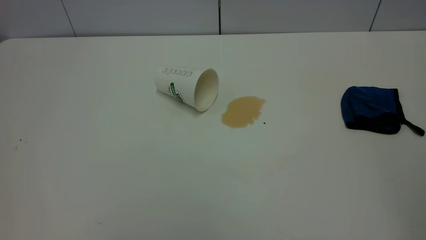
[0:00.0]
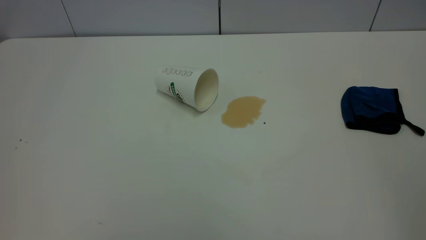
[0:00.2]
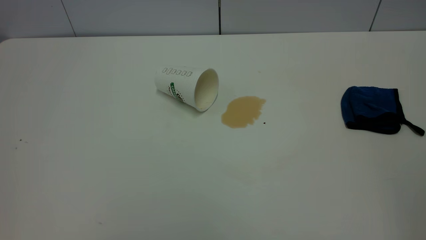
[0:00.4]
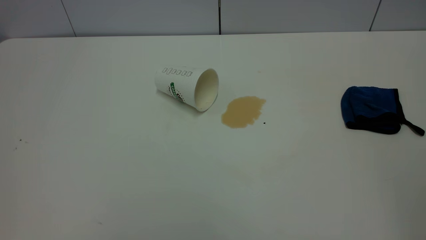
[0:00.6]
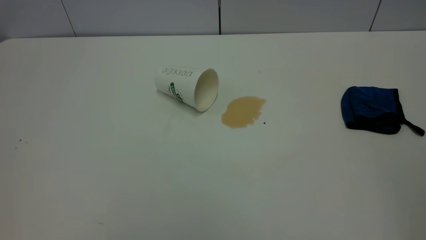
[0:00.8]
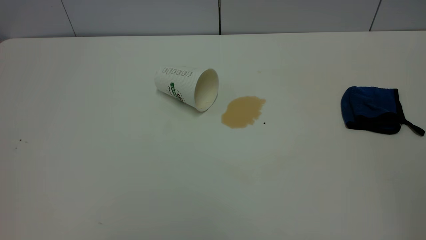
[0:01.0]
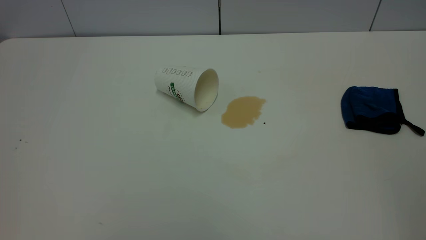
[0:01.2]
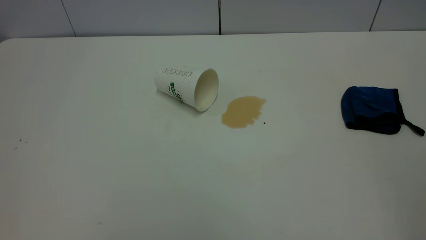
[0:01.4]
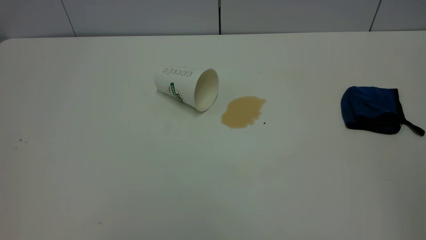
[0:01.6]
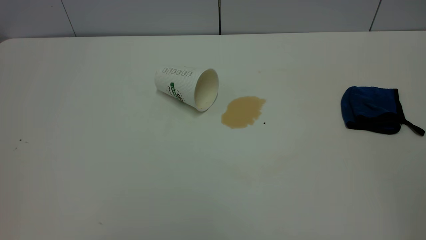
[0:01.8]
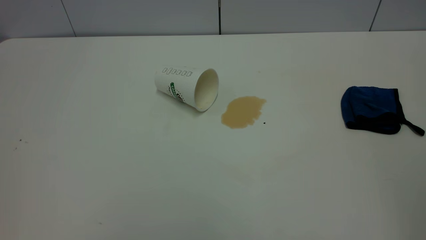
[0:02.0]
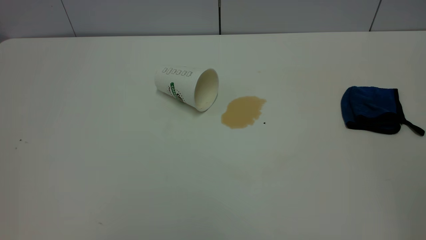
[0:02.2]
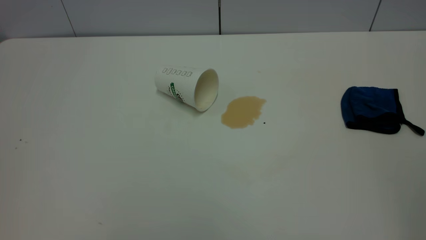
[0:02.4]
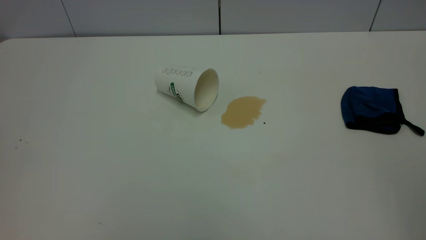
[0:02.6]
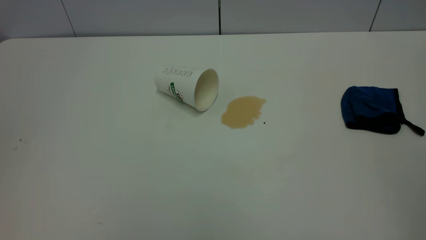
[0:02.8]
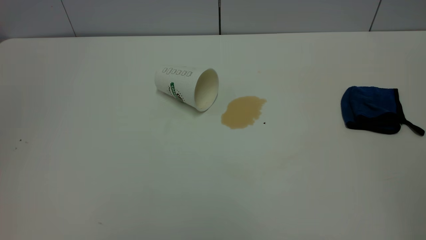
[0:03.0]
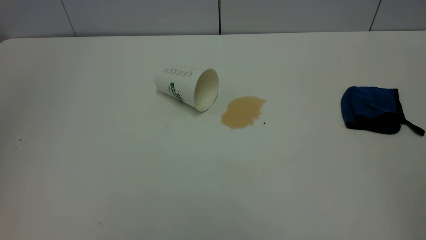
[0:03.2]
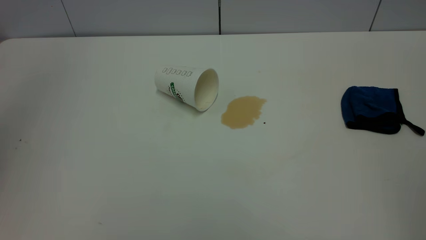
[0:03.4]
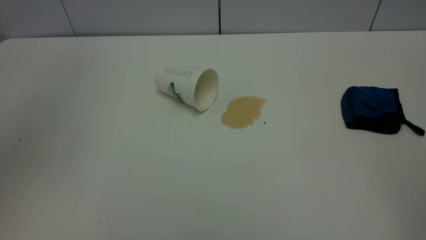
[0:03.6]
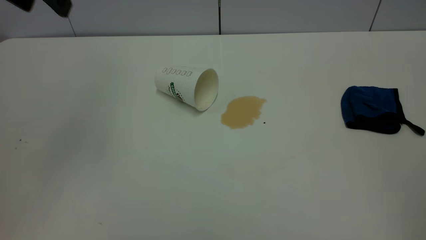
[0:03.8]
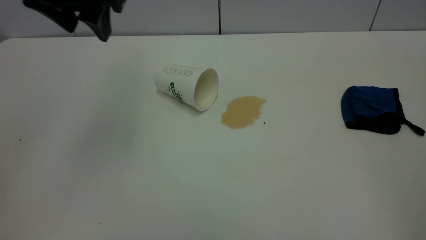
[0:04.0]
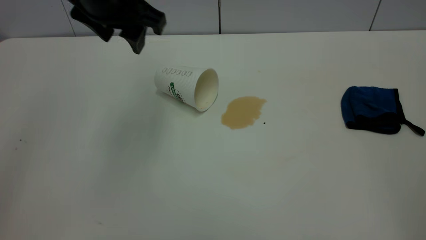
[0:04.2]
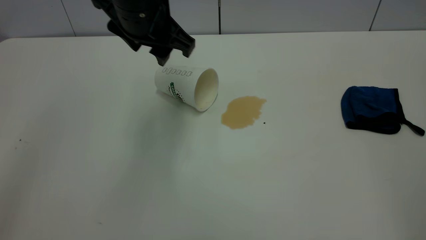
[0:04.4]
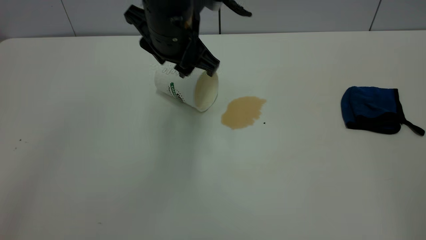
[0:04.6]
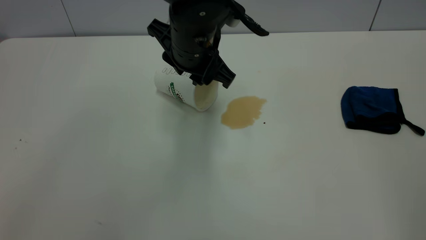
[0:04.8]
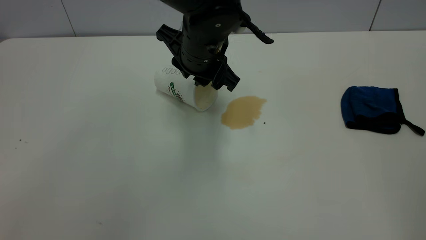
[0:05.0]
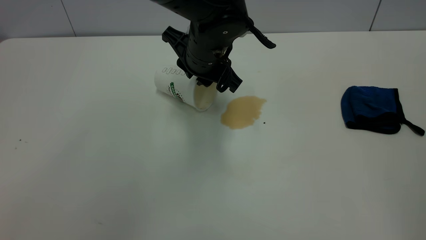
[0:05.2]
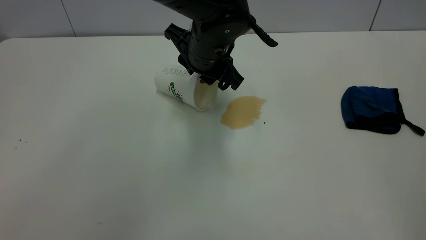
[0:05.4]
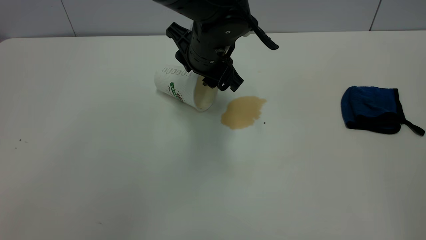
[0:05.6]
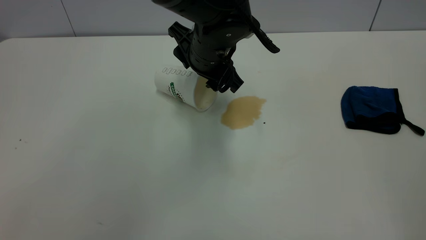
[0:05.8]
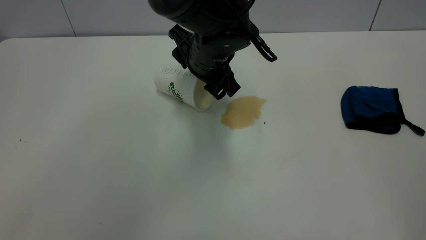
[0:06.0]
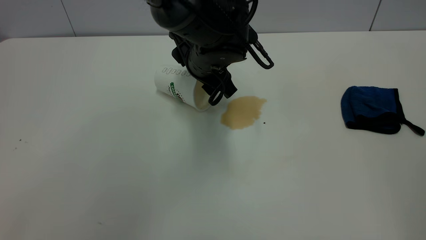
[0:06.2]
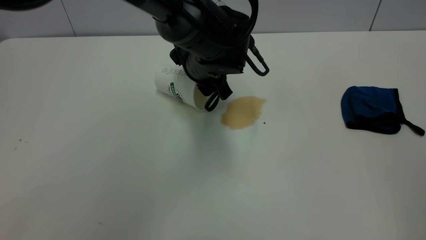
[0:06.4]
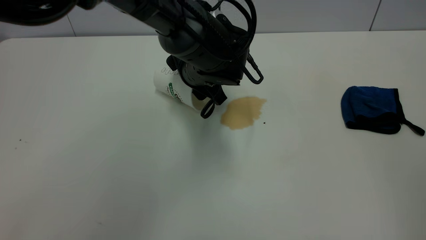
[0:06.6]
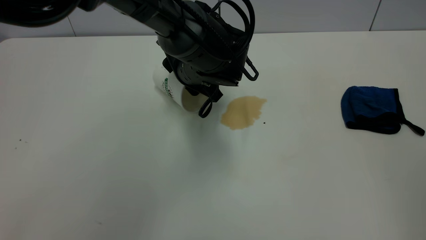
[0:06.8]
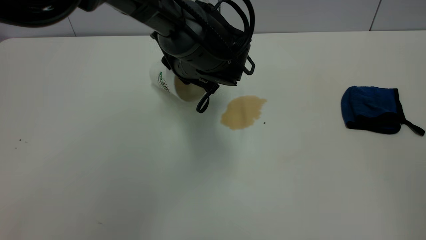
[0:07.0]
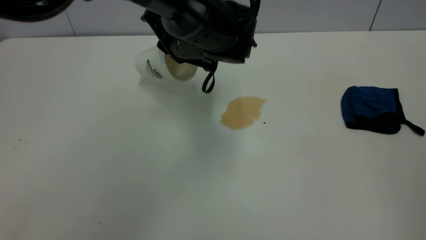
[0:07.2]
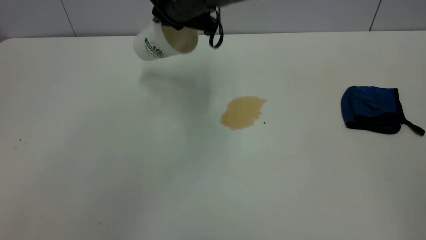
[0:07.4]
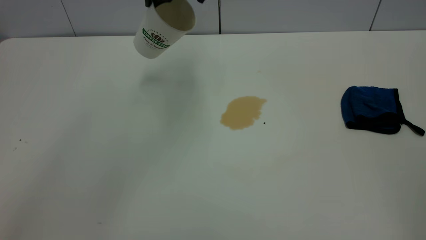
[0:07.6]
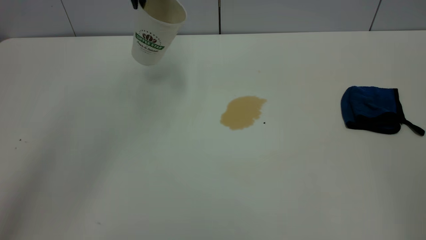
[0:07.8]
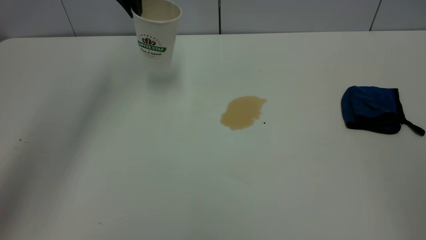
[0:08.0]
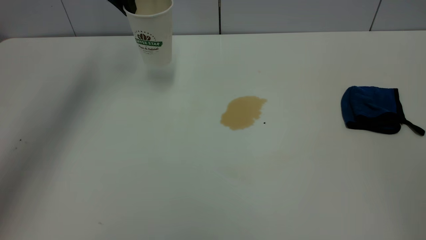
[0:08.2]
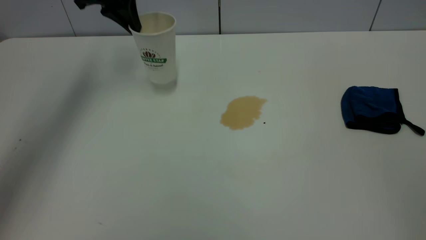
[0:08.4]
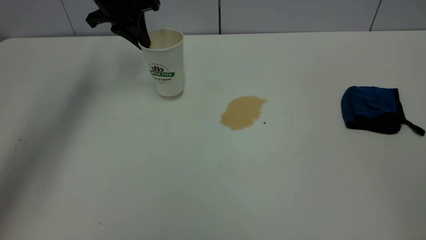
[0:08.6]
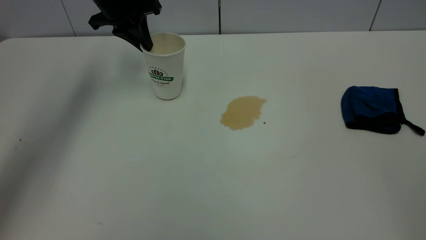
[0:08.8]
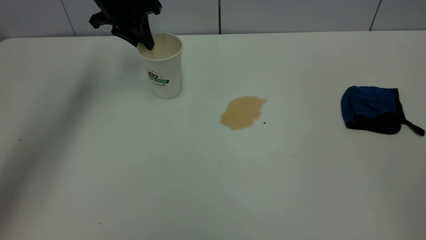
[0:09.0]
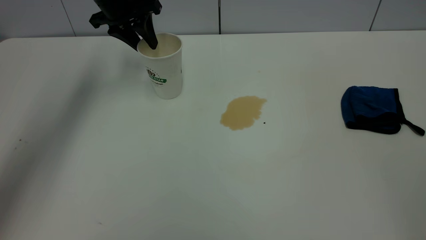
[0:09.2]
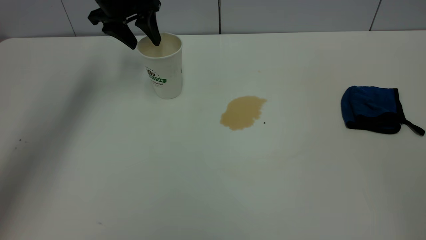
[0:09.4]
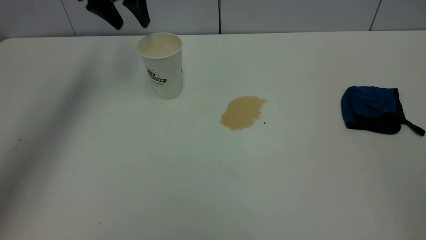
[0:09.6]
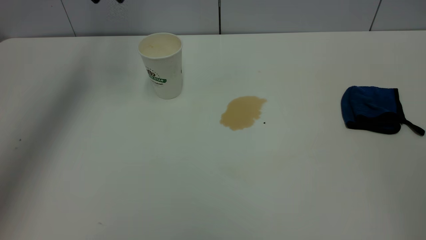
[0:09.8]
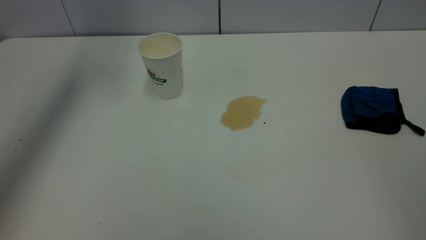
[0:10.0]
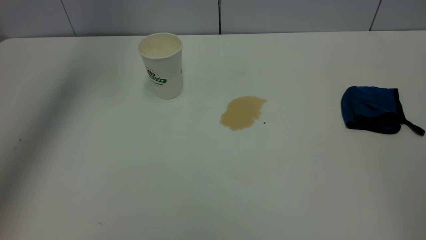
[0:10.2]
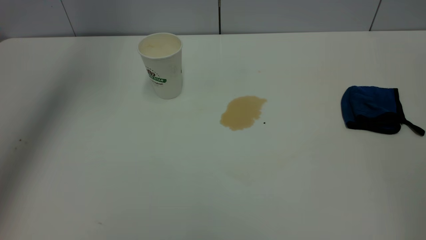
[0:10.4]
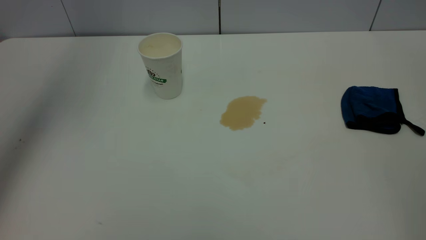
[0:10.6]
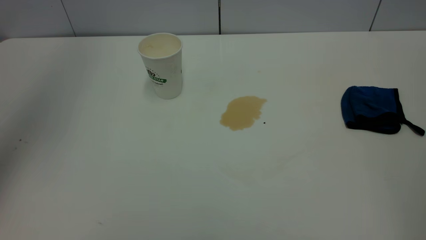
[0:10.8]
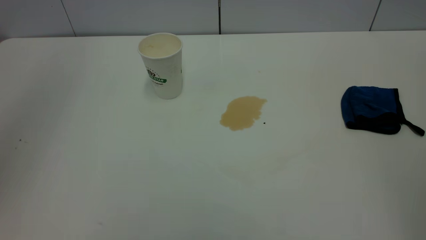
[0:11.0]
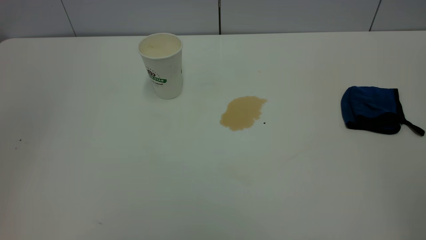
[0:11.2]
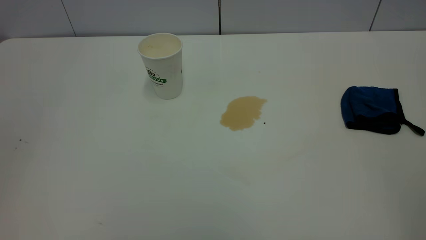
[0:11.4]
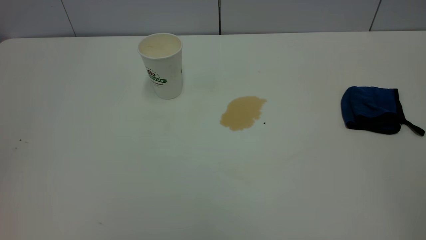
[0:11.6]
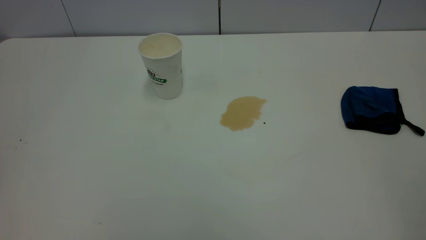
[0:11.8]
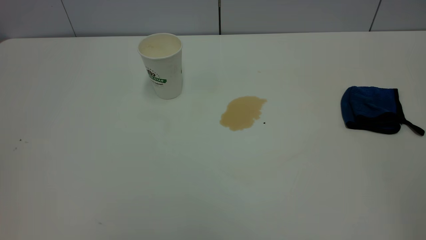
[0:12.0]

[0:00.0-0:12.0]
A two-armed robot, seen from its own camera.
Task of the whole recording: the left gripper pick up the fallen cup and place it upright, the right gripper grasp the blue rag and wipe the tea stain on the table, the right gripper put the blue rag back in its original position.
Step, 0:00.0 to 0:09.4: Stand the paper cup upright.
0:00.0 to 0:01.6: Both grippers stay about where they are.
0:03.0 to 0:04.4: The left gripper goes some 40 cm to the right, forward and downward.
0:04.4 to 0:06.0: The left gripper travels downward and to the right by about 10 cm, and closes, then opens again.
0:06.0 to 0:07.6: The left gripper is displaced upward, forward and to the left by roughly 15 cm, and closes up.
0:07.6 to 0:09.0: The left gripper shifts about 15 cm to the left, downward and forward, and opens.
0:09.0 to 0:10.4: The left gripper goes approximately 15 cm upward, and opens, then closes again.
0:10.4 to 0:12.0: The left gripper goes about 40 cm backward.

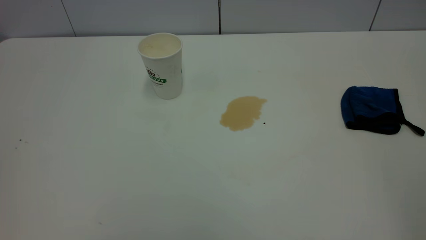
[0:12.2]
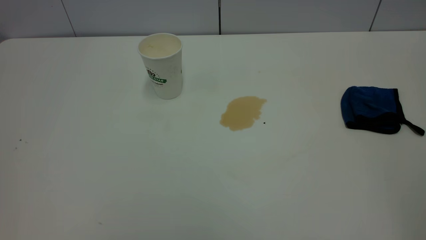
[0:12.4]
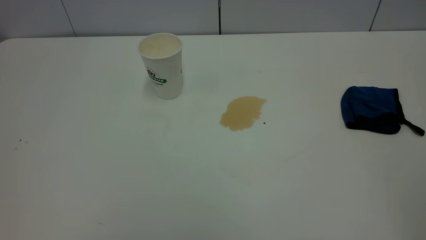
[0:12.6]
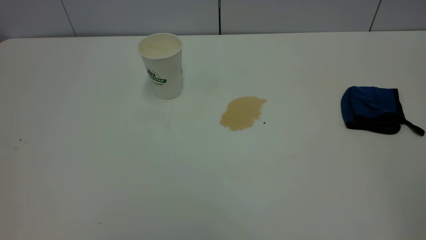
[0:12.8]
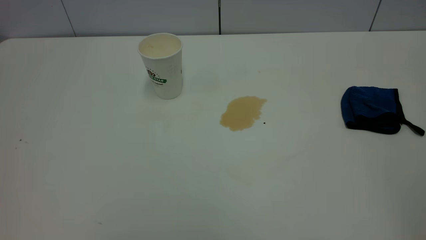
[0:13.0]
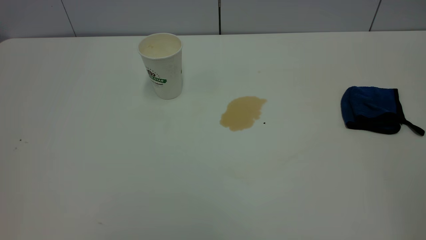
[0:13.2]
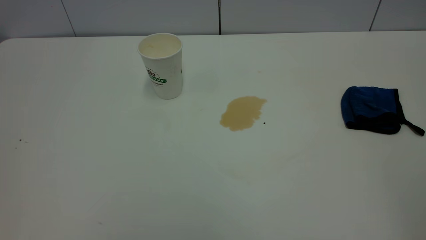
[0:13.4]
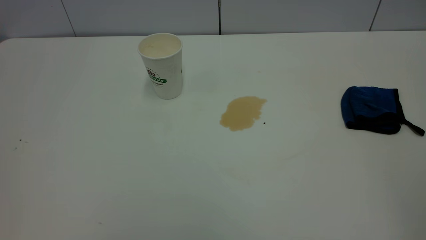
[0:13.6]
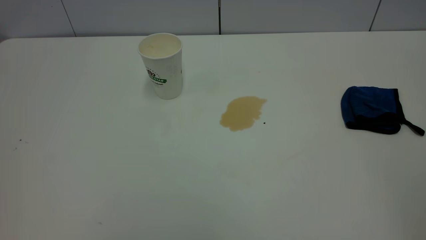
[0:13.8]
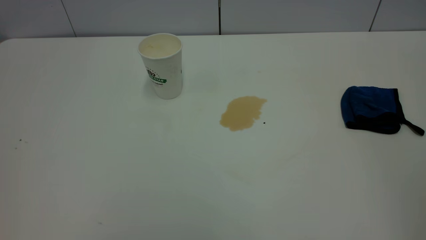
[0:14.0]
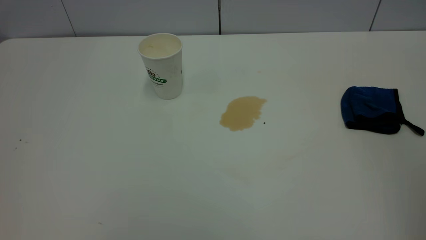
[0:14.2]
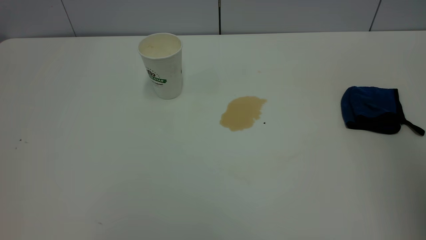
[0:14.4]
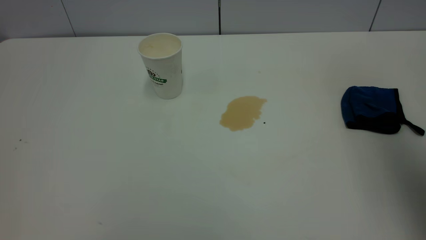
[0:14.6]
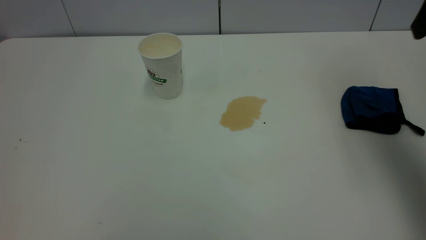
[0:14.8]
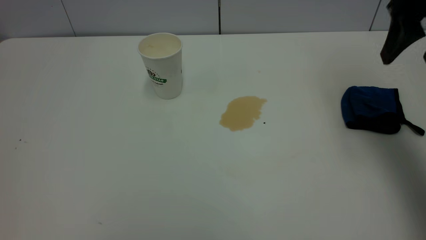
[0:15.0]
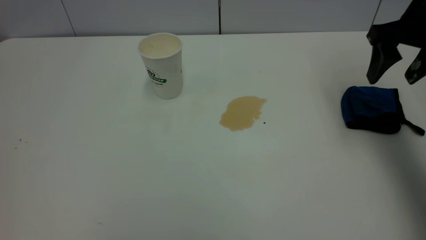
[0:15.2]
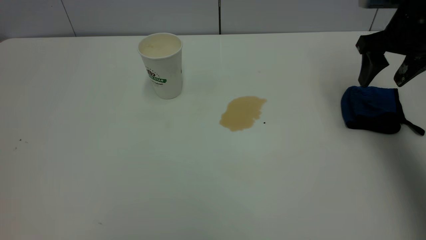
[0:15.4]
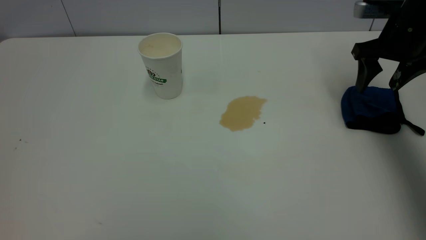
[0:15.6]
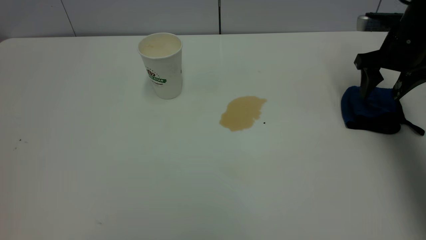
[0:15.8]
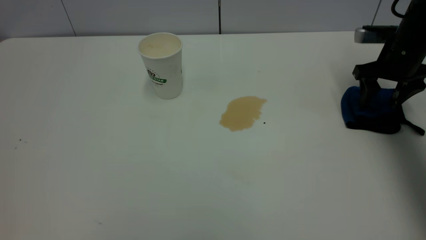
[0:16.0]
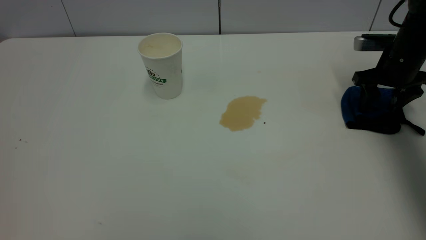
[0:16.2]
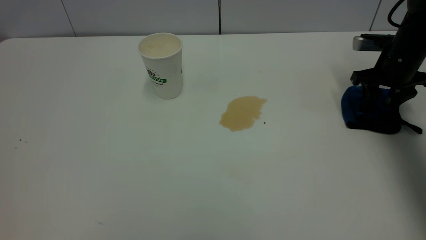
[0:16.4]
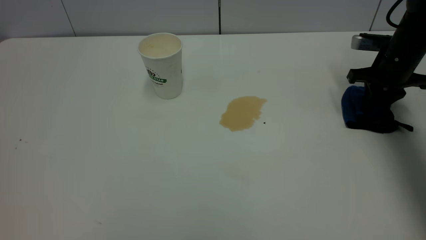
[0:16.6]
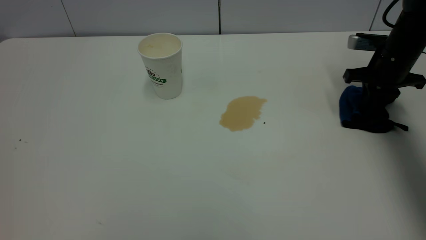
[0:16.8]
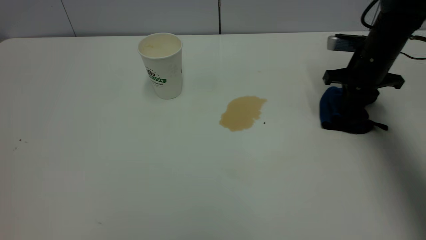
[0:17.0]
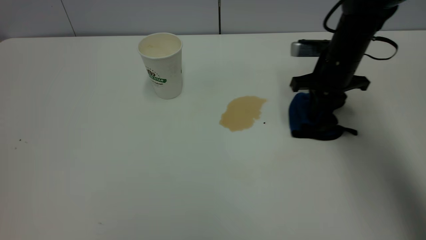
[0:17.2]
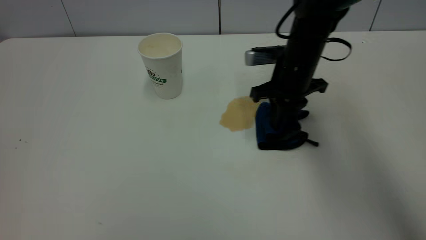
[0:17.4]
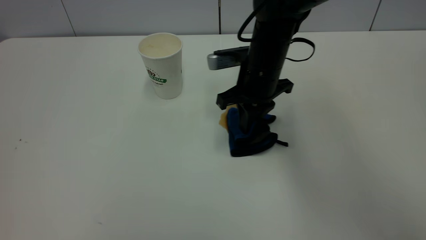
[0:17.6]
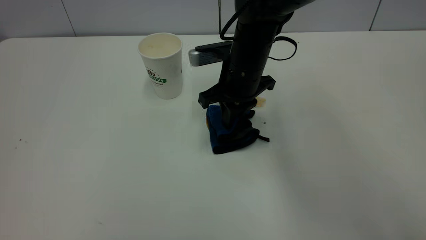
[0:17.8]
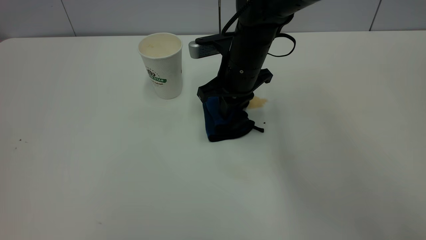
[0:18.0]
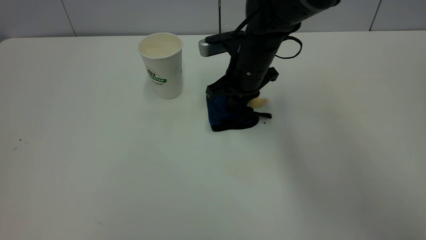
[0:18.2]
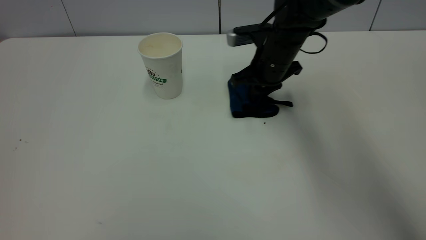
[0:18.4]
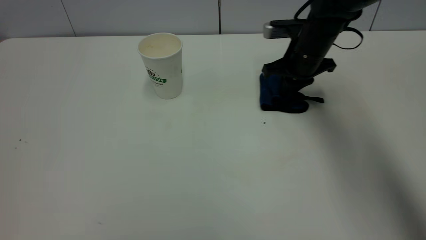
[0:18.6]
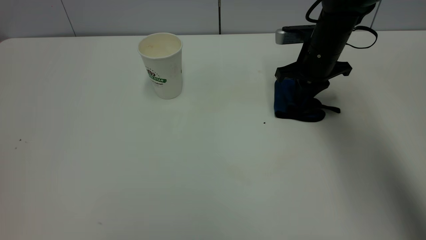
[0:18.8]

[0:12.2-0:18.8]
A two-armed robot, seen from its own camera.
Task of the whole recording: the left gripper pick up the fallen cup and place it upright, the right gripper grasp the blue rag and wipe the tea stain on the table, the right gripper put the blue rag back in its original position.
0:13.8 to 0:15.4: The right gripper goes approximately 50 cm forward and downward.
0:15.4 to 0:17.2: The right gripper shifts approximately 15 cm downward and to the left, and closes up.
0:17.2 to 0:18.8: The right gripper reaches roughly 15 cm to the left, then returns.
